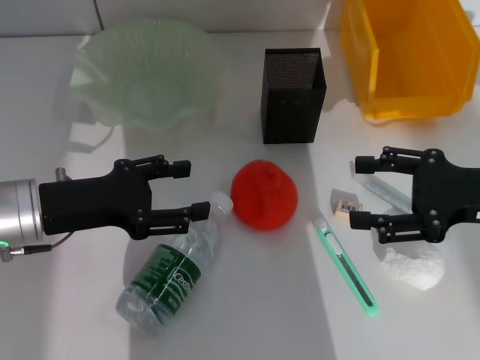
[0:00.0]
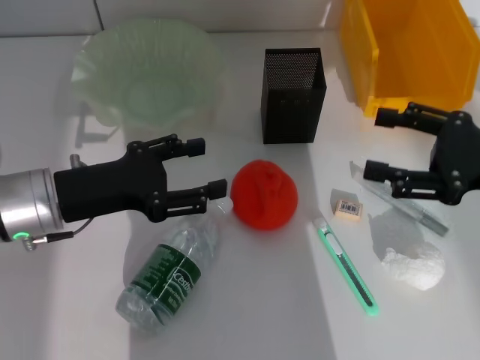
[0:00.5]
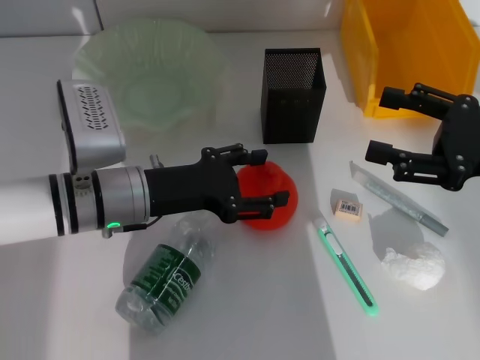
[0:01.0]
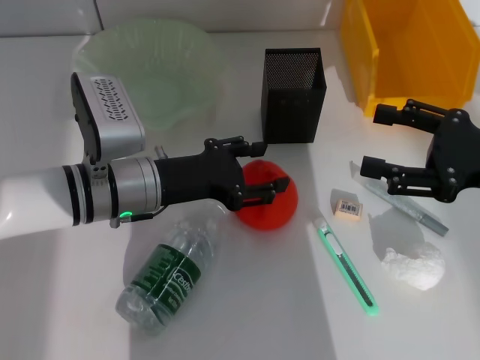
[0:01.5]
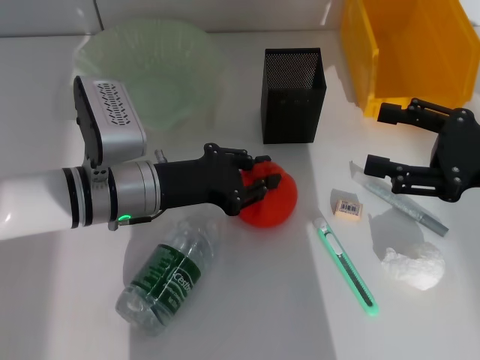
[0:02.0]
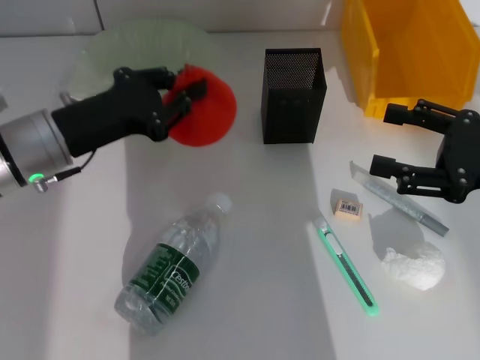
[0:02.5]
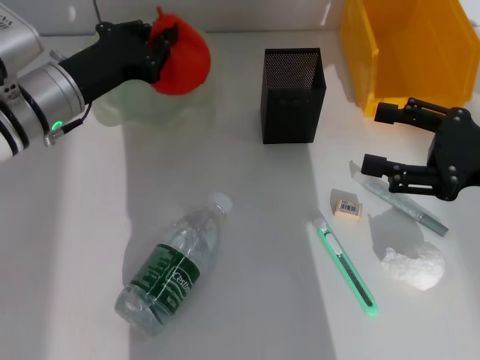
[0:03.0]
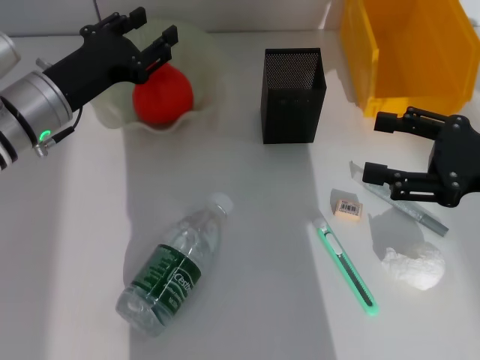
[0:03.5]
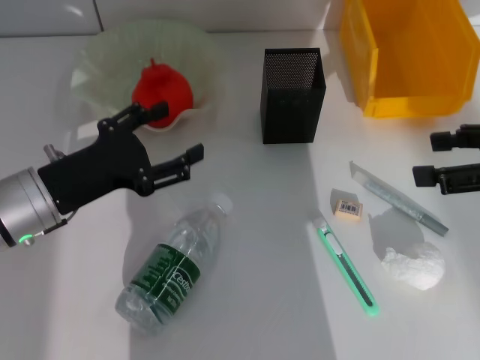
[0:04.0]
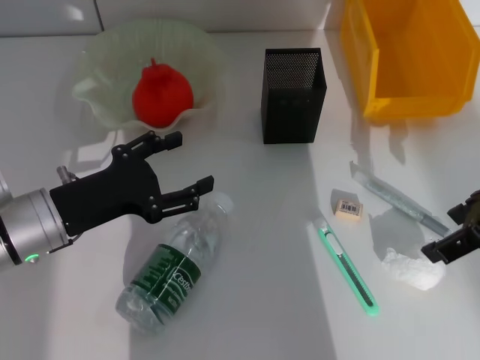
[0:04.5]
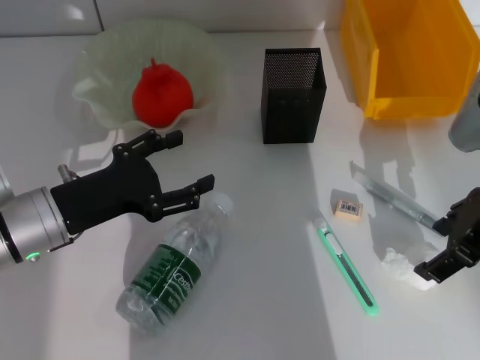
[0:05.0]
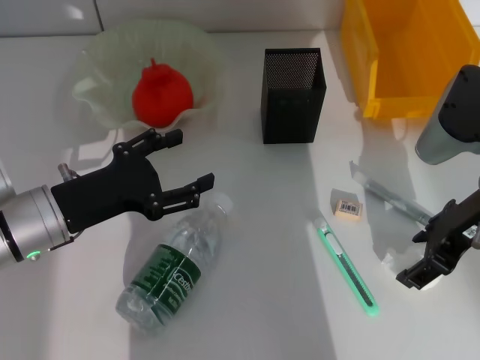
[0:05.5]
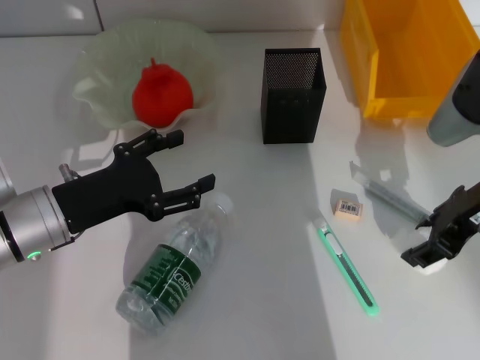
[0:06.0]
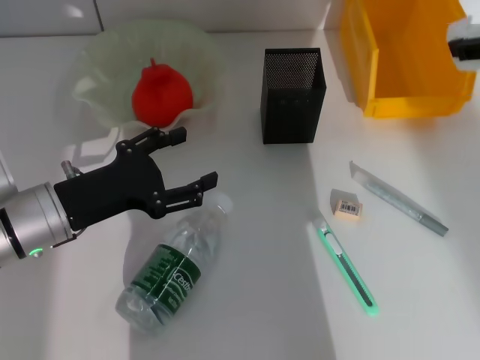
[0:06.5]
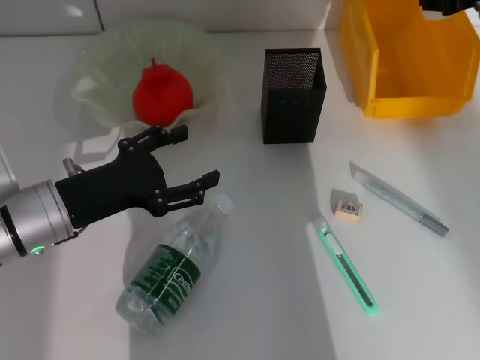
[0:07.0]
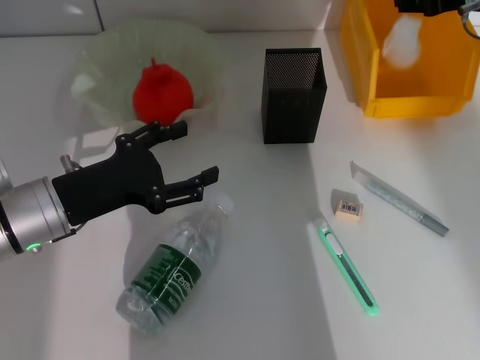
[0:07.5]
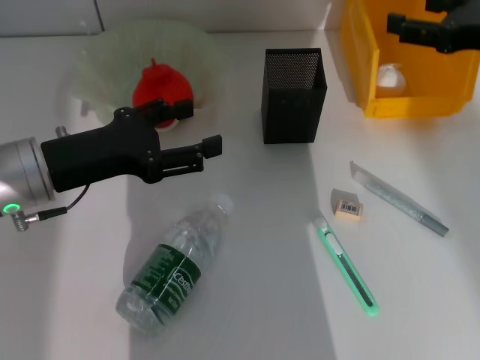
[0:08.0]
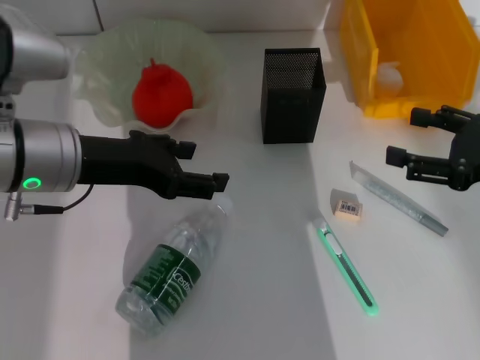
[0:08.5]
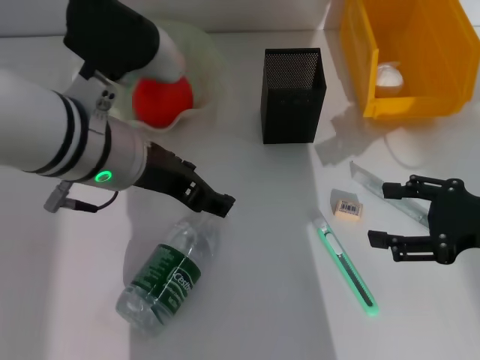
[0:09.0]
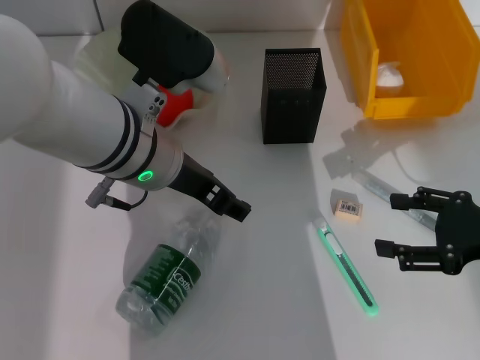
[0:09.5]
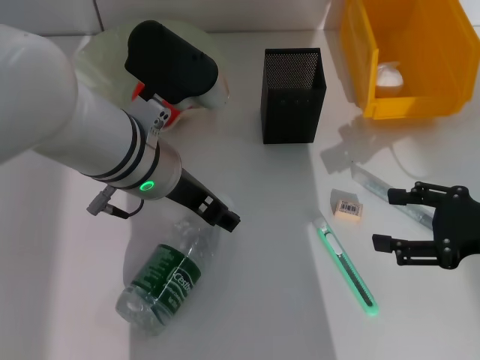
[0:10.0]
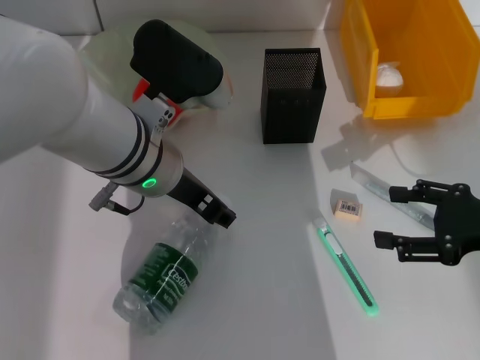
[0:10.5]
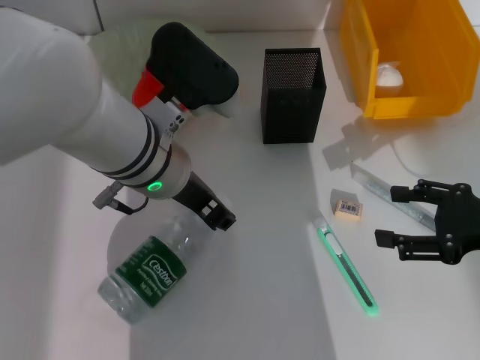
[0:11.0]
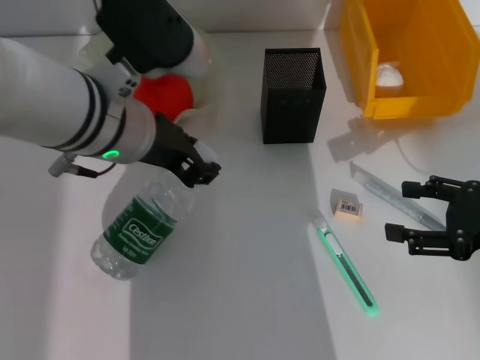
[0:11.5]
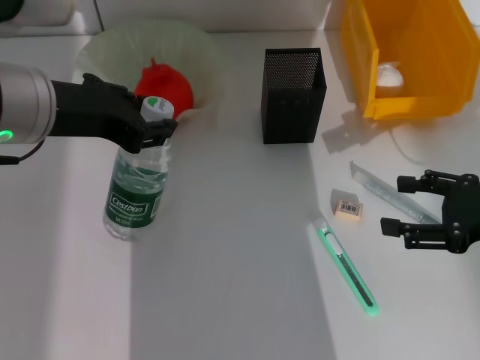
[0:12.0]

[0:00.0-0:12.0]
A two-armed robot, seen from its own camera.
Step, 0:00.0 to 0:01.5: Grab the orange with the left hand.
Step, 0:02.0 to 0:03.5: Place the orange into the fruit bowl with the left hand.
Step, 0:04.0 to 0:05.5: Grab the paper ball with the right hand.
Step, 0:06.0 to 0:07.5: Place the paper ball into the trash can with the right hand.
Step, 0:08.0 to 0:10.5: Grab the water bottle with the left hand.
0:00.0 to 0:02.0: The left gripper moves to the right, some 10 cm, and closes.
0:02.0 to 0:04.0: The right gripper moves upward, some 5 cm; the left gripper moves to the left, roughly 10 cm, and opens up.
0:04.0 to 0:06.0: The right gripper goes about 10 cm to the left, and closes up.
0:06.0 to 0:08.0: The right gripper is displaced to the right by roughly 5 cm, travels forward and back again, approximately 10 cm each way, and opens its fingers, while the left gripper is displaced upward by approximately 5 cm.
0:08.0 to 0:10.0: The right gripper heads backward and downward, covering roughly 15 cm, while the left gripper shifts about 15 cm to the right.
0:10.0 to 0:12.0: The left gripper moves to the left and upward, some 10 cm, and closes up.

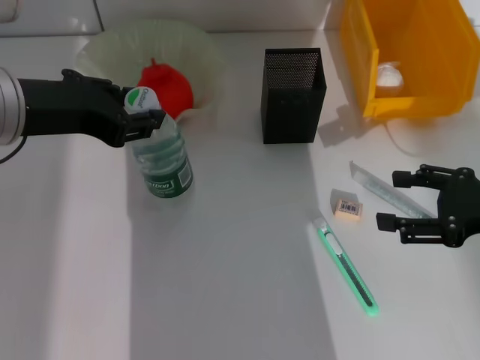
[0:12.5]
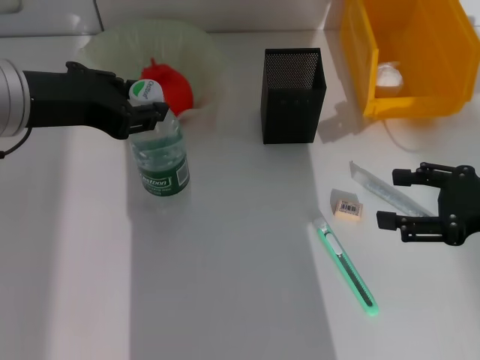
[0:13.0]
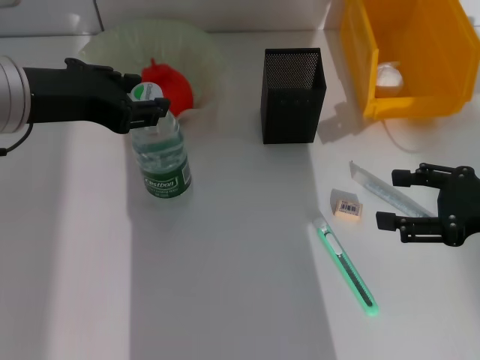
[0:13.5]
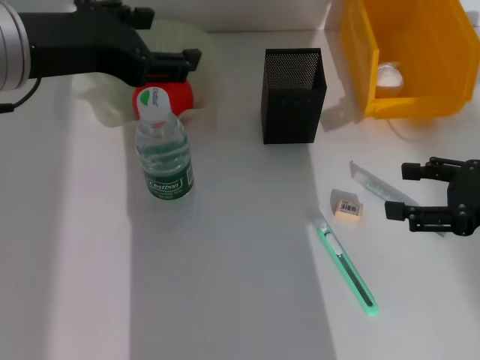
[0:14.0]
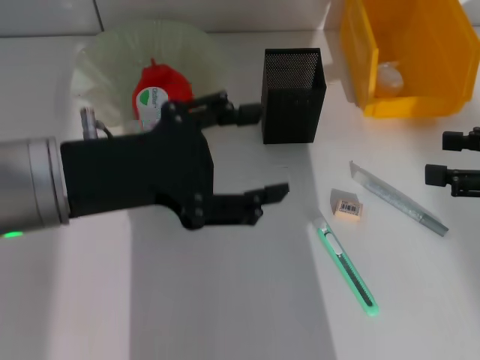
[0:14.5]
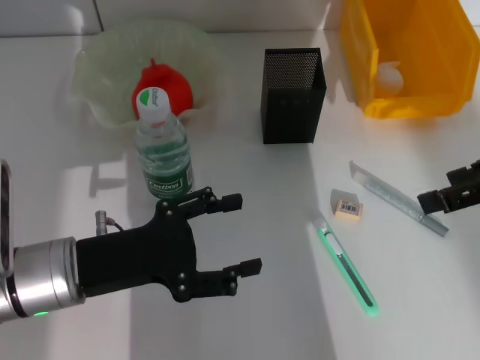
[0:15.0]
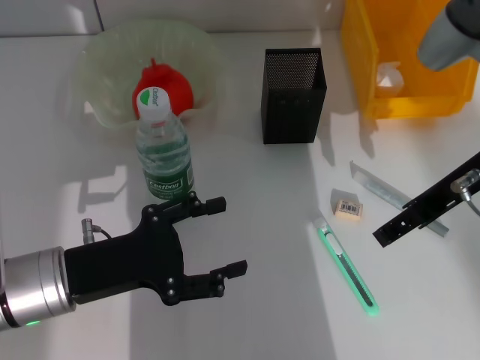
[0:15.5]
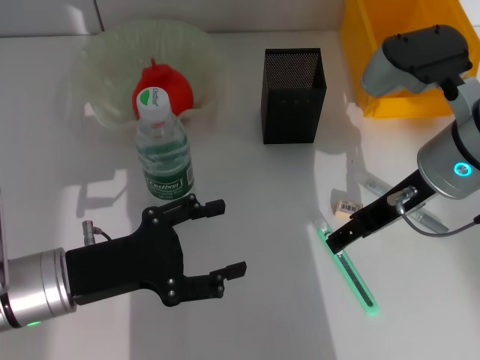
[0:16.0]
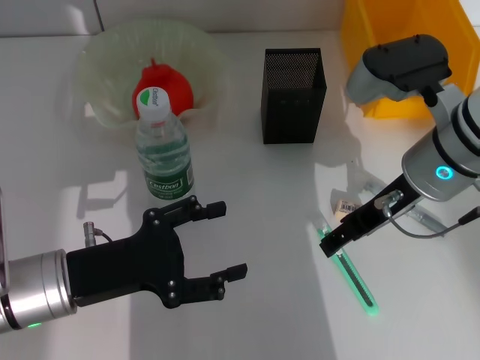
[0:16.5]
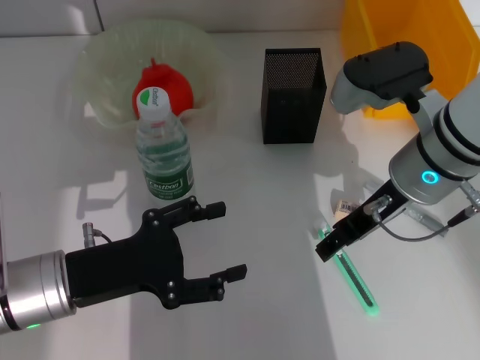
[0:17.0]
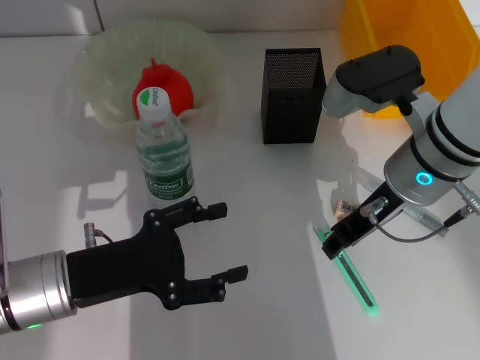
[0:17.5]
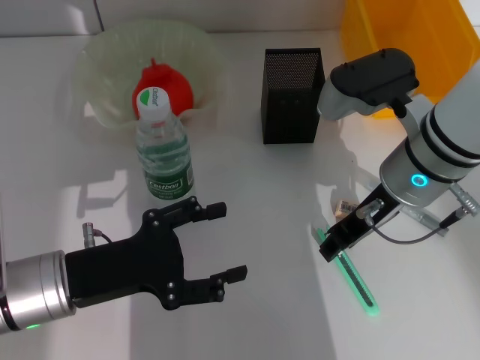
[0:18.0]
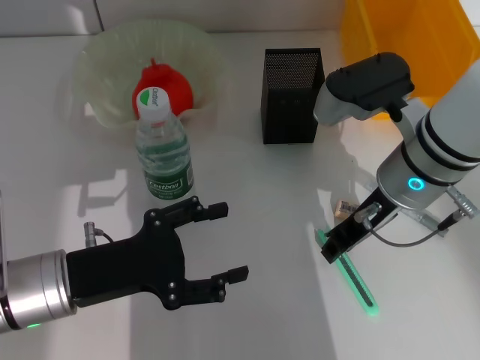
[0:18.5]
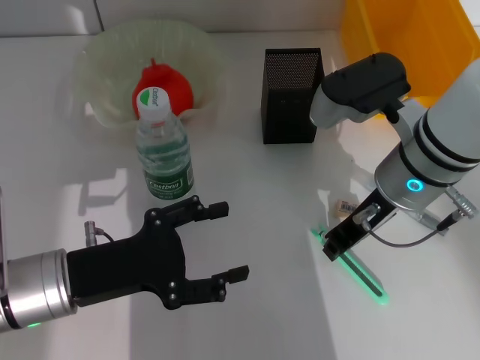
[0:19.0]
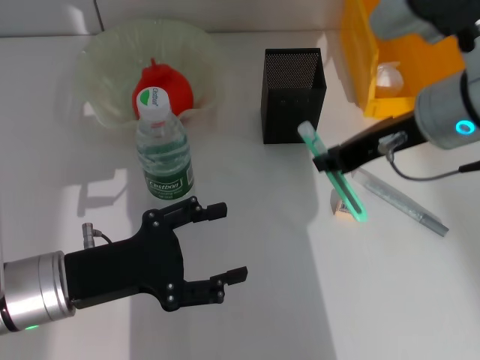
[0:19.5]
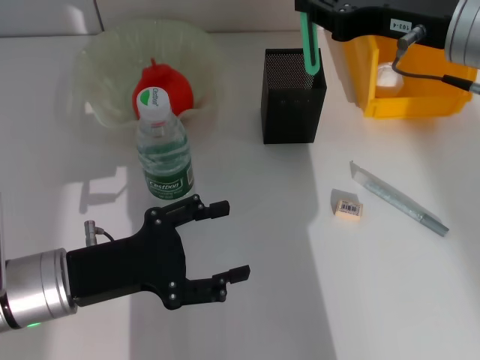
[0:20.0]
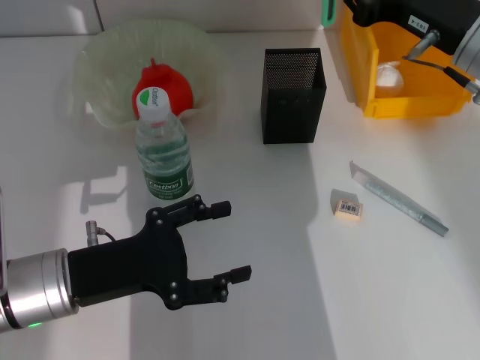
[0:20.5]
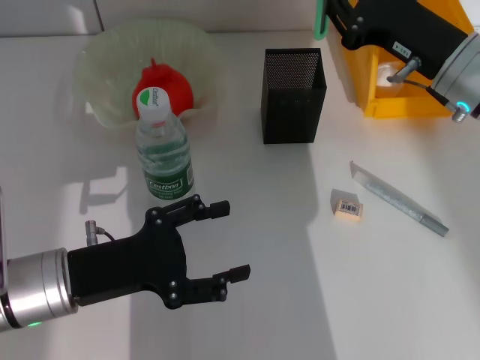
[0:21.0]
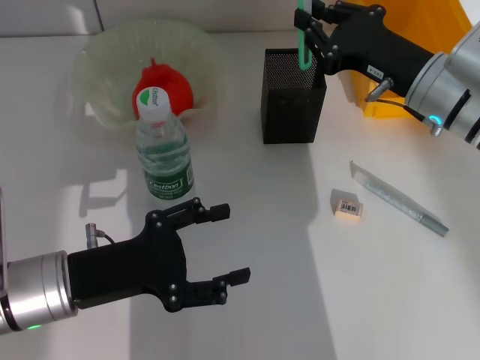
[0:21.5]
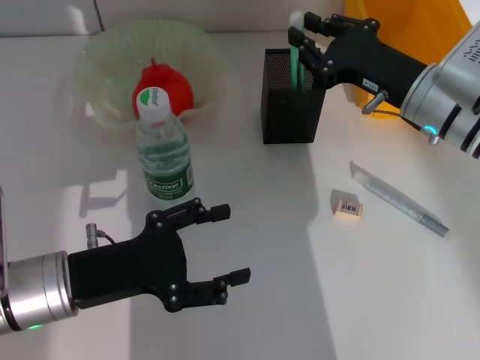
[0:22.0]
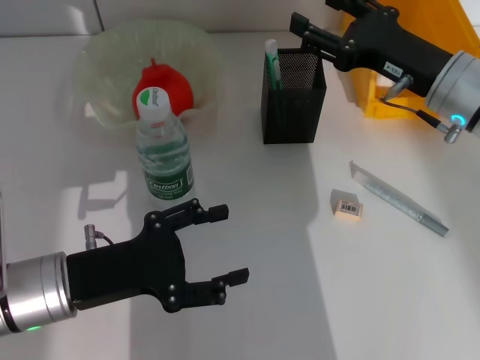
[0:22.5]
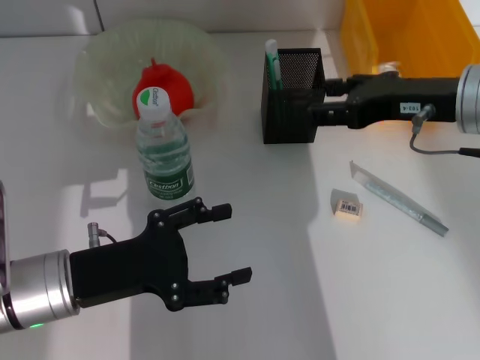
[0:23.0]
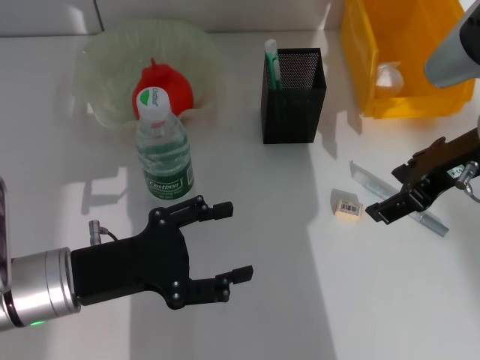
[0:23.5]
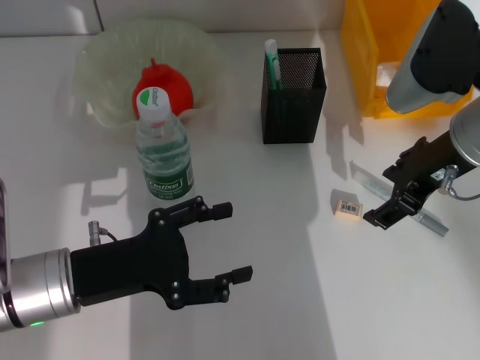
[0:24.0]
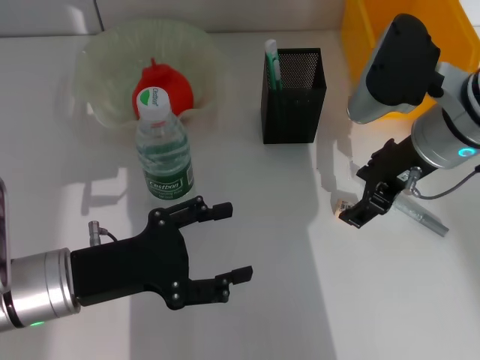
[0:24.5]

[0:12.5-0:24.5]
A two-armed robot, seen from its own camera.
Step, 0:14.0 to 0:18.5: Grab the blue utility knife with the right hand.
Step, 0:19.0 to 0:22.0: Place the blue utility knife into the pen holder with the right hand.
0:12.5 to 0:14.5: The right gripper shifts approximately 5 cm upward; the left gripper moves about 5 cm, and opens.
0:14.5 to 0:16.5: The left gripper heads downward, covering some 15 cm. Meanwhile the right gripper goes approximately 20 cm to the left.
0:16.5 to 0:18.5: The right gripper closes its fingers.
0:18.5 to 0:20.5: The right gripper is displaced to the right by approximately 5 cm, and closes.
0:20.5 to 0:22.5: The right gripper opens its fingers.
0:22.5 to 0:24.5: The right gripper ends up approximately 5 cm from where it was.

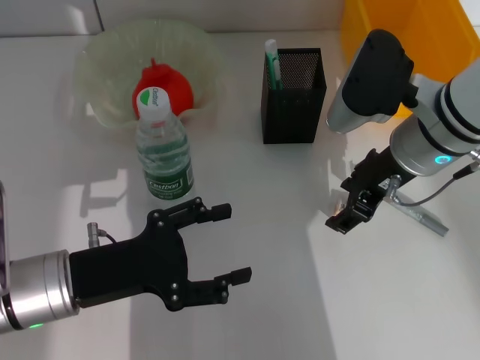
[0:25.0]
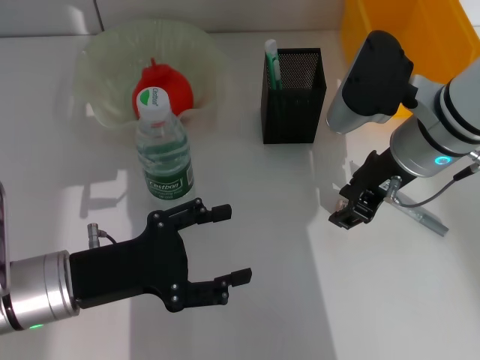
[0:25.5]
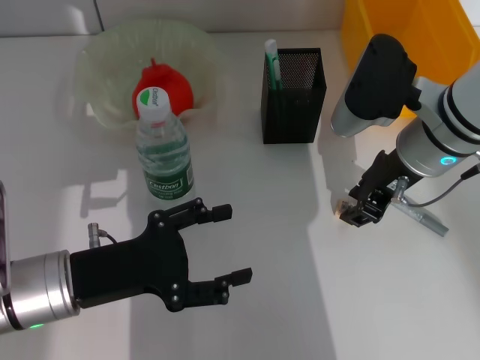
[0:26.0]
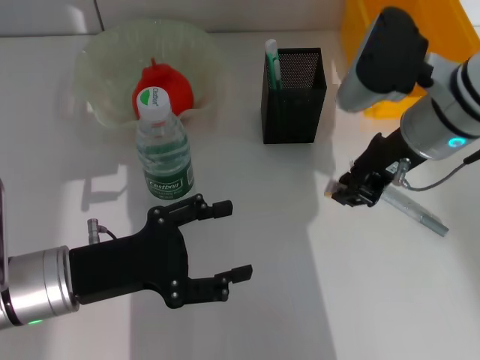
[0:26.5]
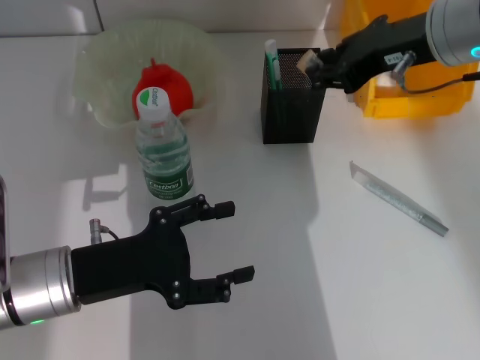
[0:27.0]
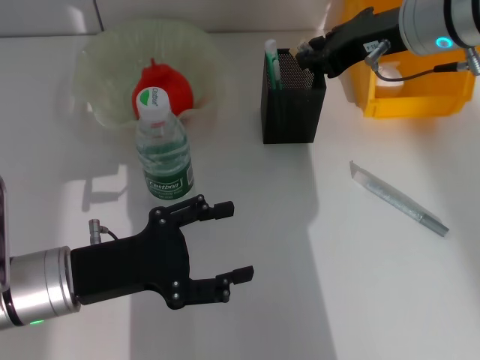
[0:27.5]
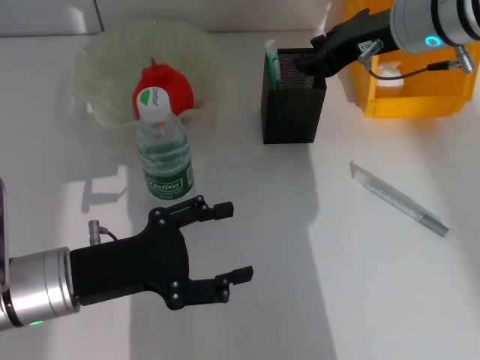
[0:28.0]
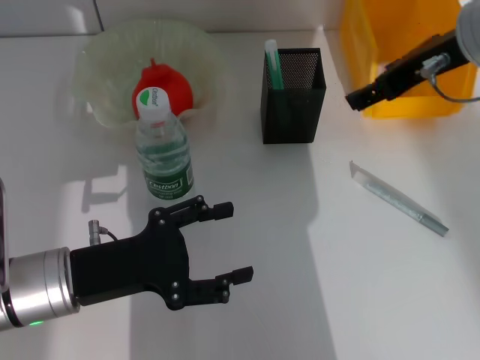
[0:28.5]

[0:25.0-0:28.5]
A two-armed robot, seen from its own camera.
Step, 0:26.5 to 0:28.0: Put the eraser into the pen holder with the right hand.
0:25.0 to 0:27.0: The right gripper travels upward by approximately 10 cm, and closes.
0:27.0 to 0:28.5: The right gripper opens.
